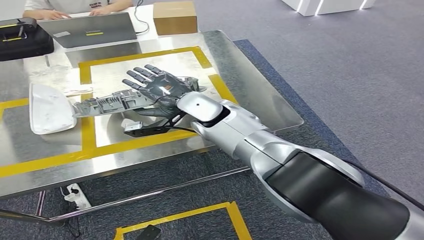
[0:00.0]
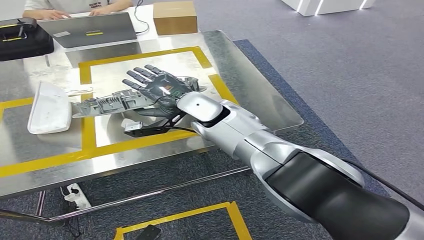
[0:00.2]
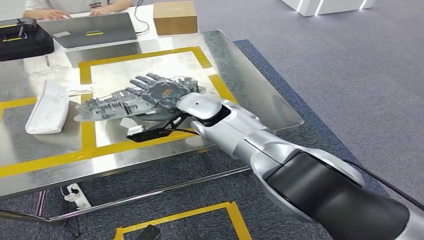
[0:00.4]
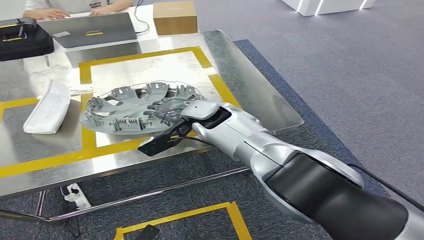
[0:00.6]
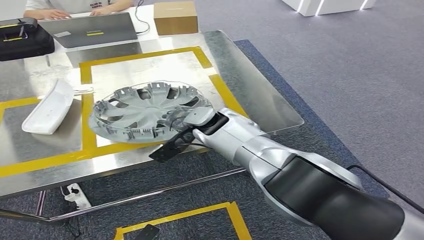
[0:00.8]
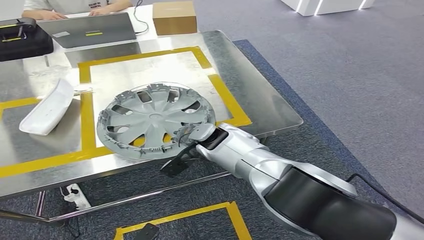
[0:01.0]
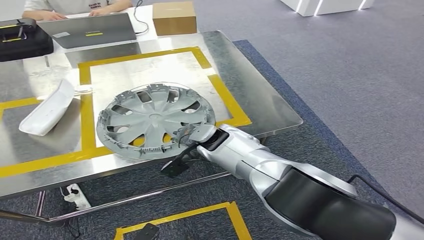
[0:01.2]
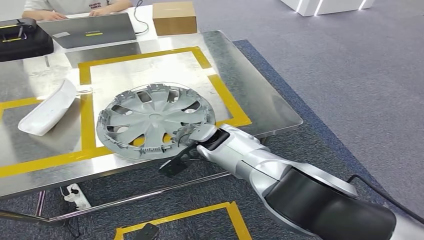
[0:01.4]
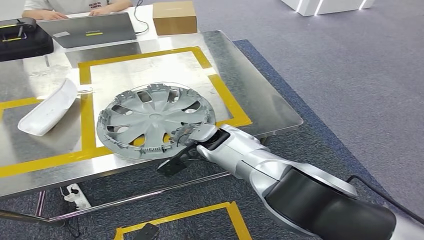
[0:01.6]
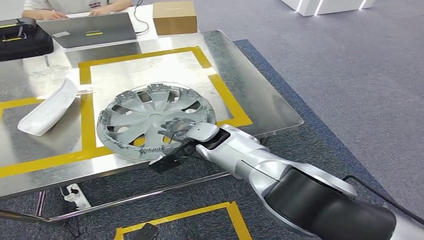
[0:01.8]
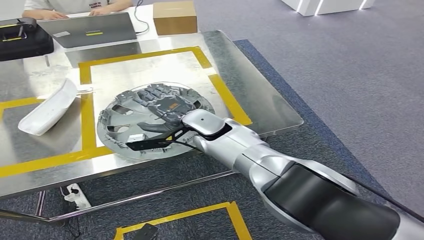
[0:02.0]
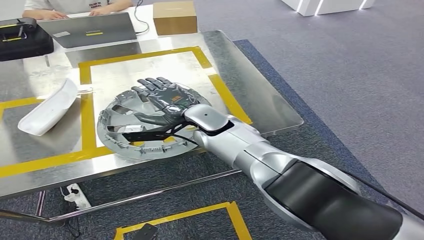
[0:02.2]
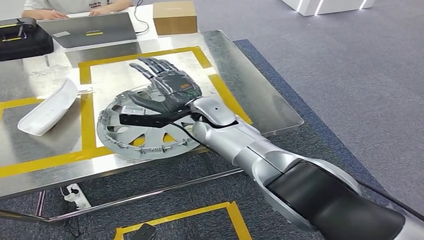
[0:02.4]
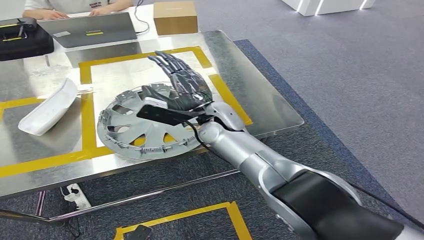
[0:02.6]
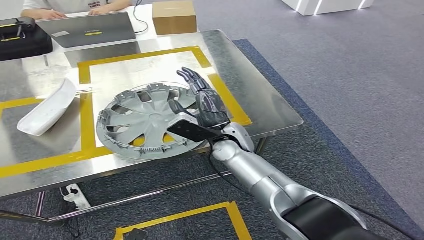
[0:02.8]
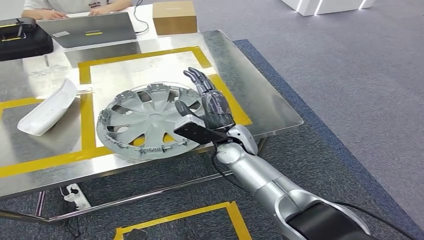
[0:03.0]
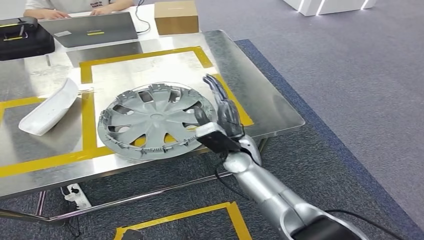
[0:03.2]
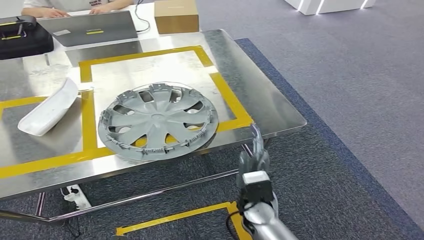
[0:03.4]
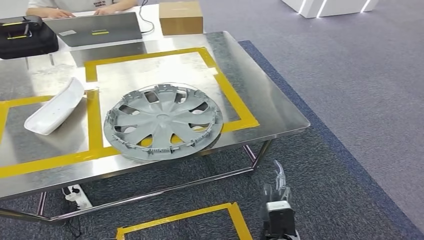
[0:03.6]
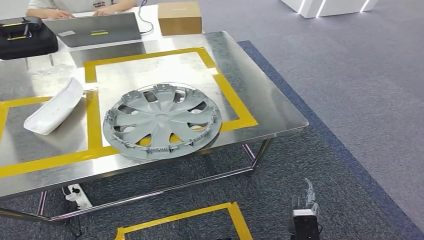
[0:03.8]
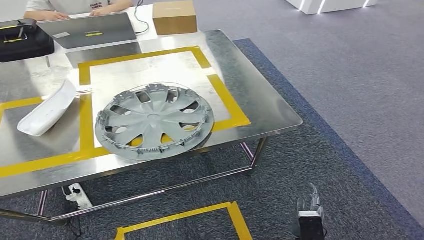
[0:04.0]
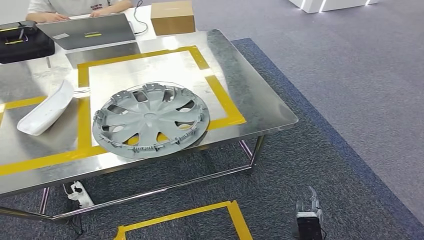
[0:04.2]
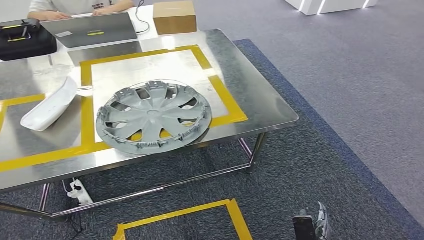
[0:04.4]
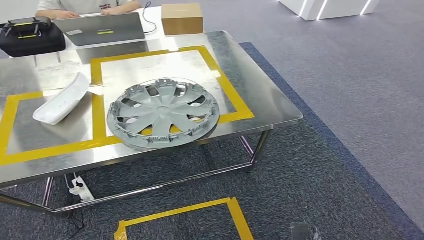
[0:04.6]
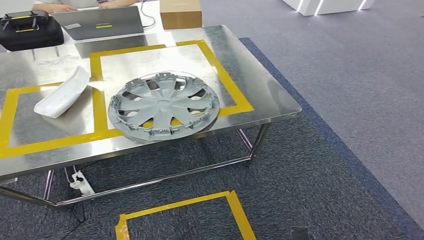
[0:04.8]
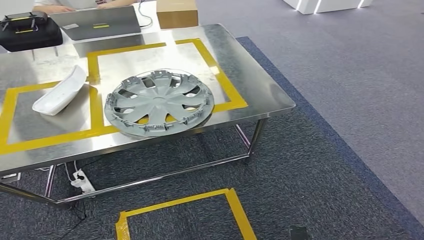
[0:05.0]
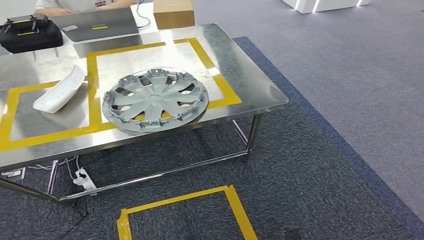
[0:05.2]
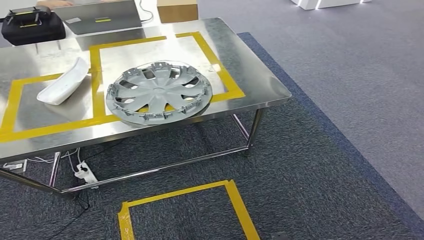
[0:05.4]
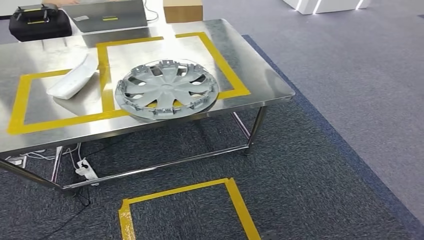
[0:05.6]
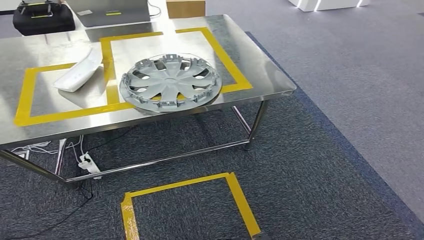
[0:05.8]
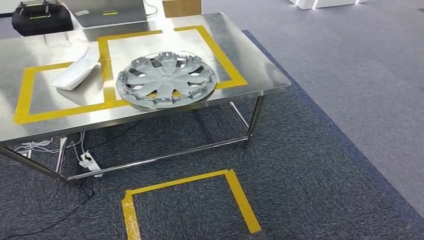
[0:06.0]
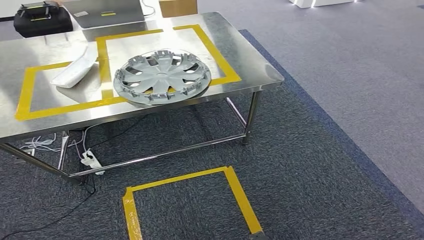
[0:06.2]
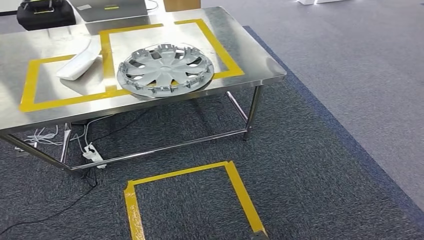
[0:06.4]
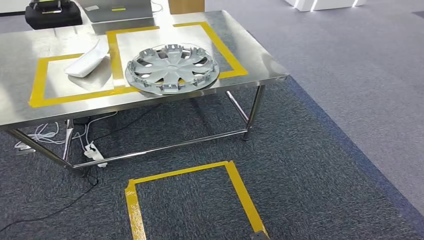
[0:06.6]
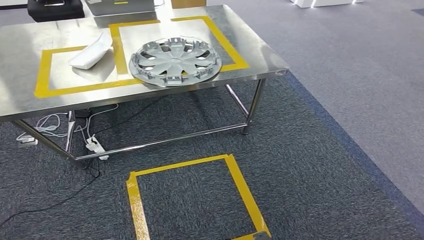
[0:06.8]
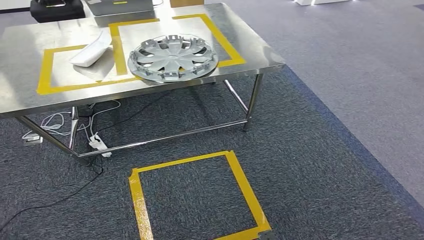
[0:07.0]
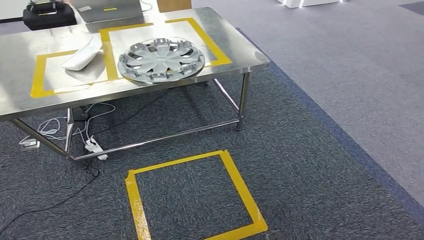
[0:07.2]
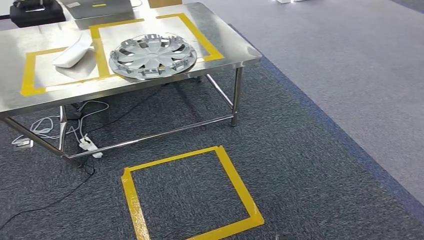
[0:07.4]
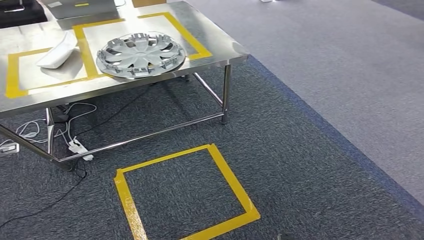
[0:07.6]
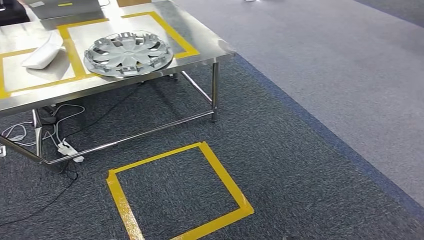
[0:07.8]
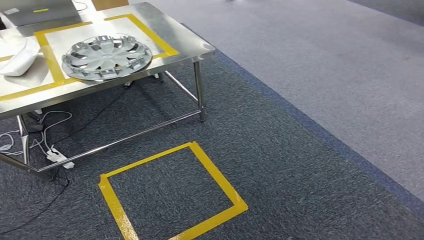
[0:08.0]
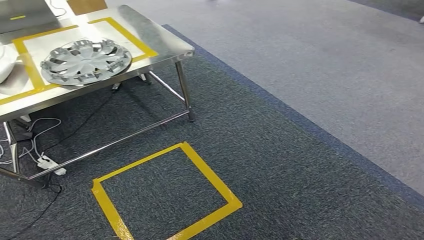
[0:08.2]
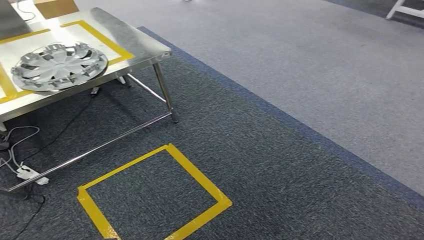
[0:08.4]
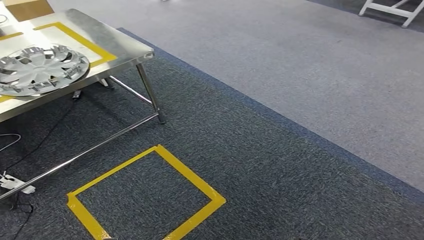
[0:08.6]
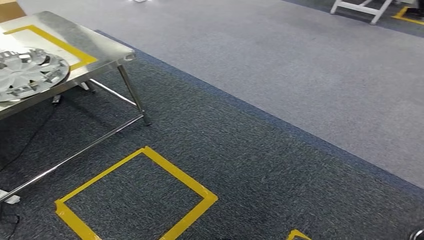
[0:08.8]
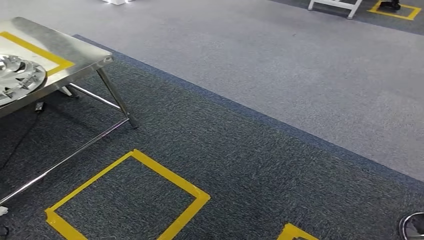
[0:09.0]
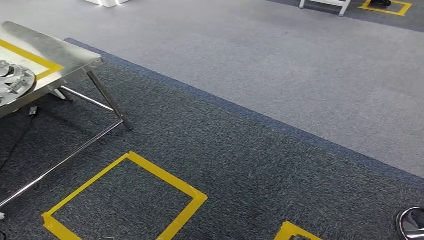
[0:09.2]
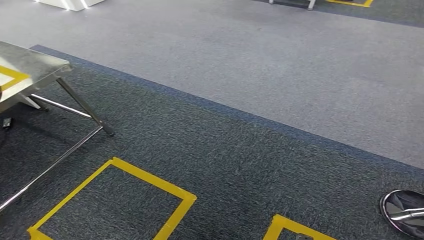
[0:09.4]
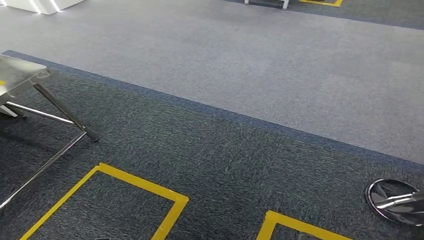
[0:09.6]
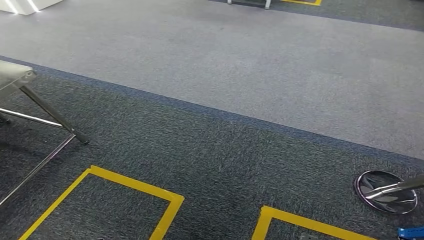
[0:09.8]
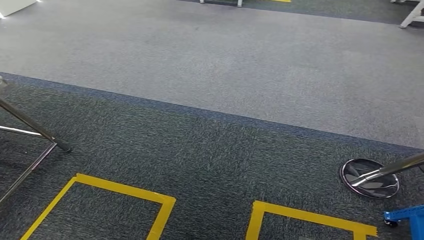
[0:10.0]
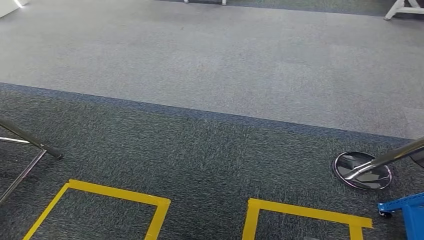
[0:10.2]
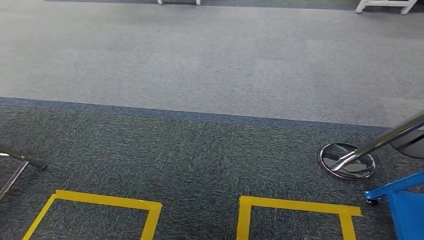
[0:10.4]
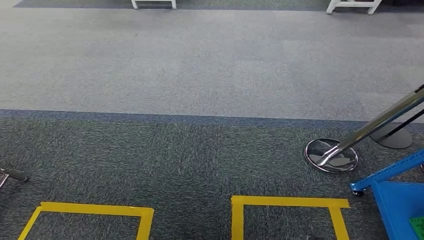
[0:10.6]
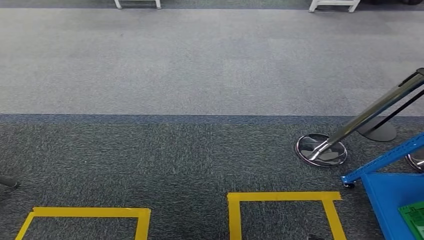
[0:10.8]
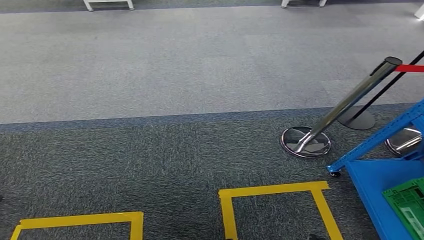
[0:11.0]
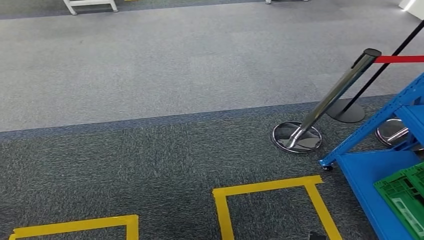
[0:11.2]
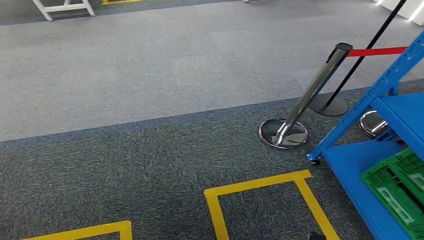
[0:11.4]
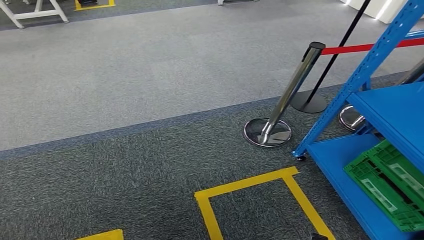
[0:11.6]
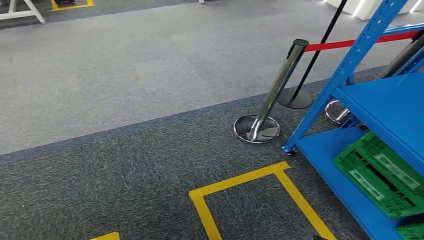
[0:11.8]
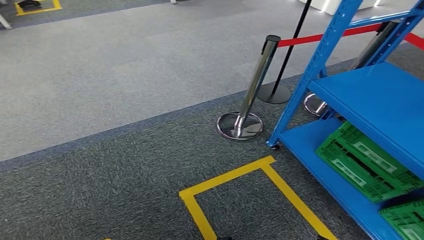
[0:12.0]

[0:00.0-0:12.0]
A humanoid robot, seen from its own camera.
Step, 0:00.0 to 0:02.2: Insert the small component into the corresponding slot on the workbench.
0:00.0 to 0:01.6: The right hand travels downward by approximately 10 cm.
0:01.6 to 0:03.0: The right hand moves some 5 cm.

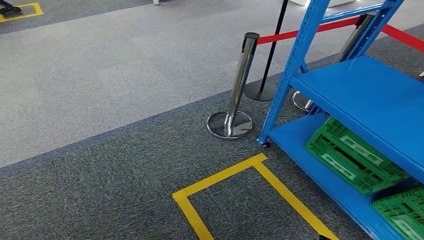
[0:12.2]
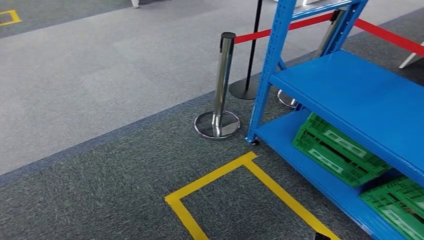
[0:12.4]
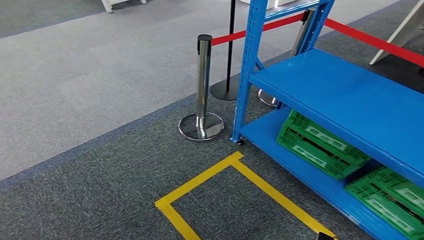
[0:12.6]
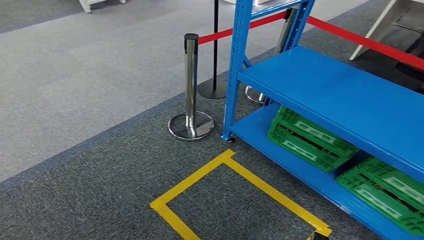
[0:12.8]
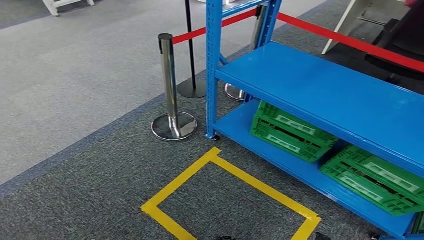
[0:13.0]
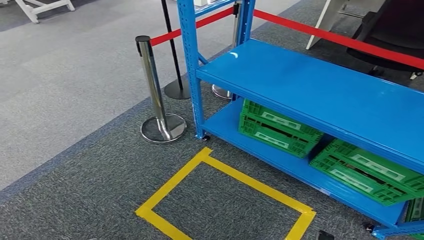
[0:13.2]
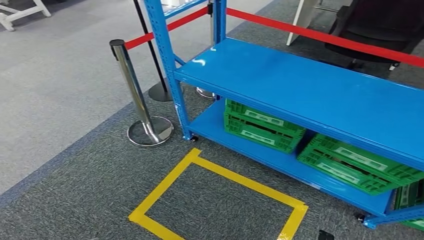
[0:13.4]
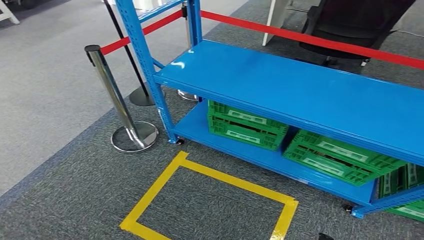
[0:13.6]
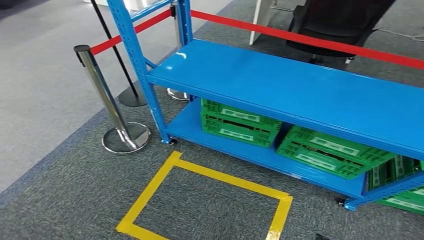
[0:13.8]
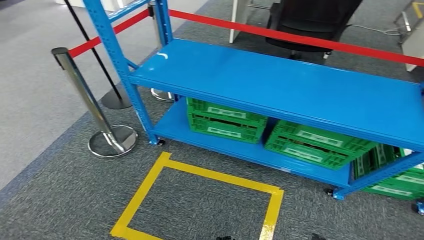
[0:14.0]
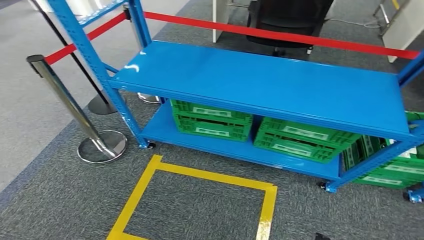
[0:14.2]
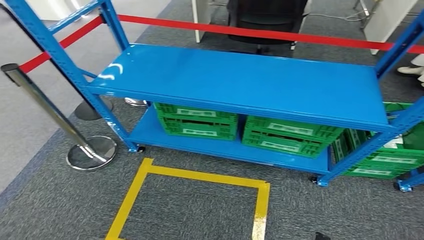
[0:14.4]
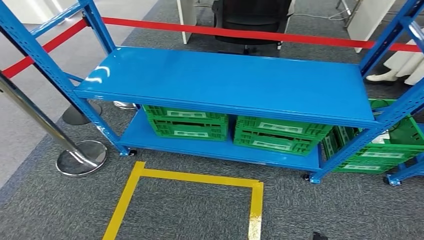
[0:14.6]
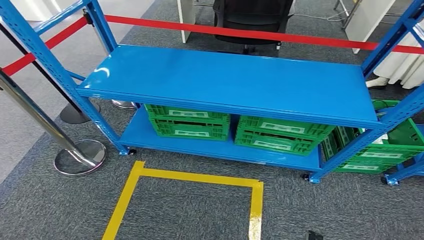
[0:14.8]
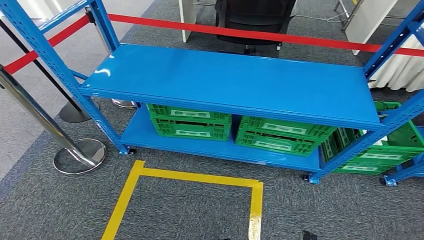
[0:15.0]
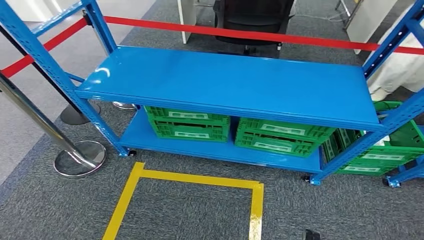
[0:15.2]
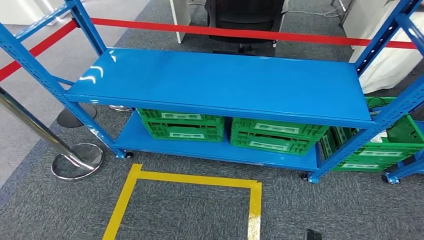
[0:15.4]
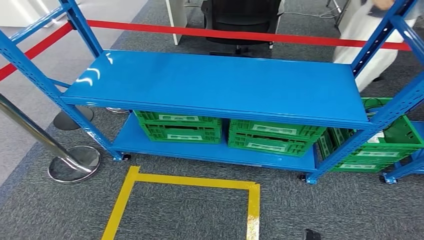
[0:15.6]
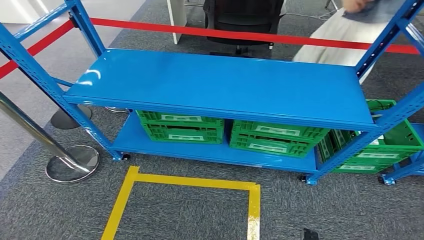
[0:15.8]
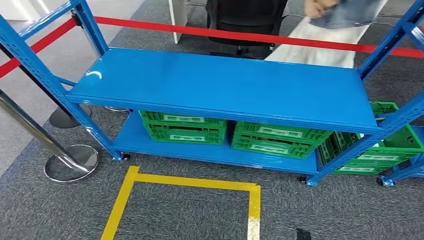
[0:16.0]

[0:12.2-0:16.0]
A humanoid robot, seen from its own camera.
Step, 0:12.2 to 0:15.8: Return to the initial position at the workbench.

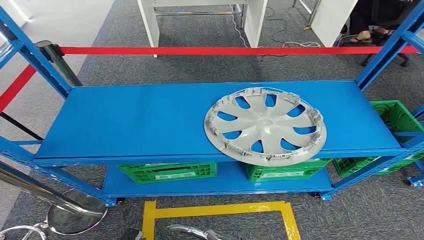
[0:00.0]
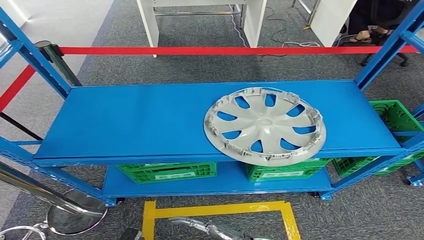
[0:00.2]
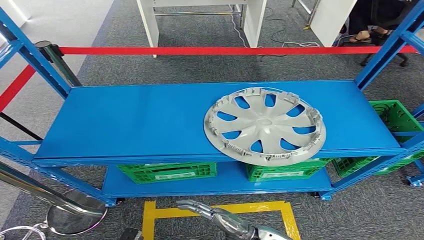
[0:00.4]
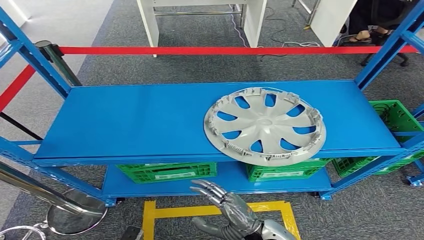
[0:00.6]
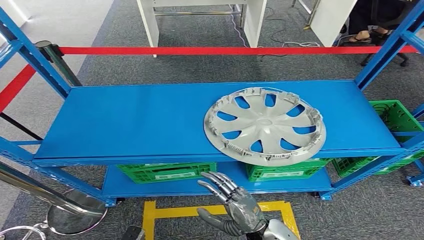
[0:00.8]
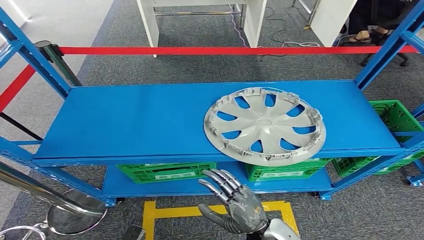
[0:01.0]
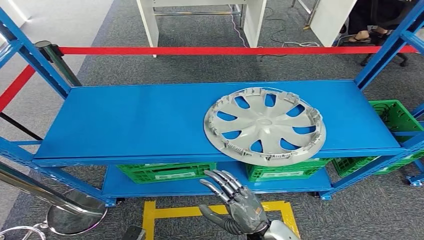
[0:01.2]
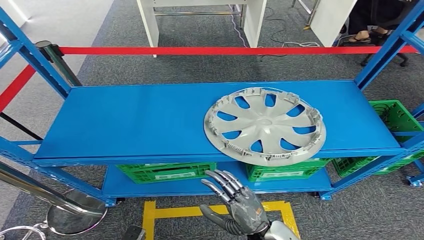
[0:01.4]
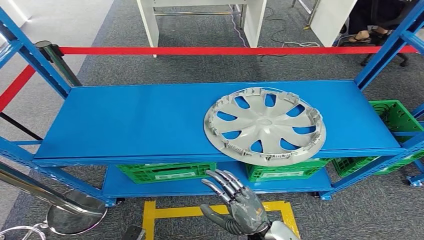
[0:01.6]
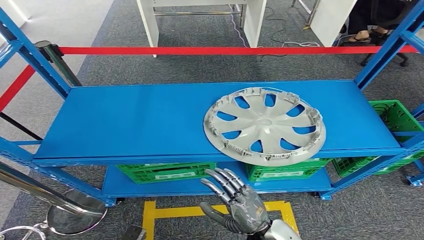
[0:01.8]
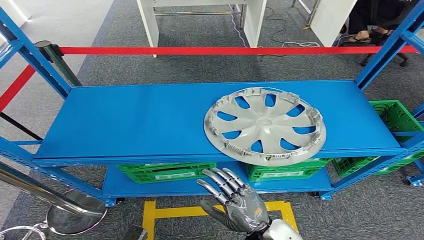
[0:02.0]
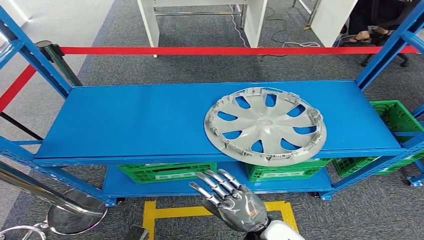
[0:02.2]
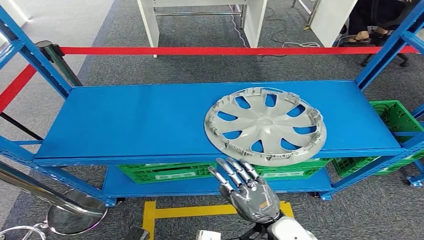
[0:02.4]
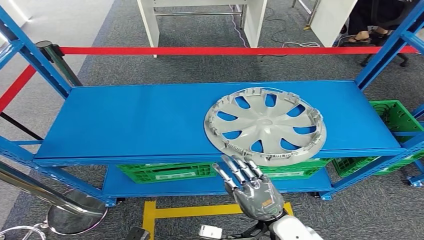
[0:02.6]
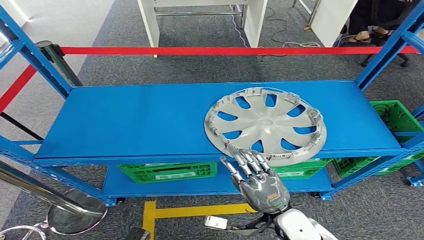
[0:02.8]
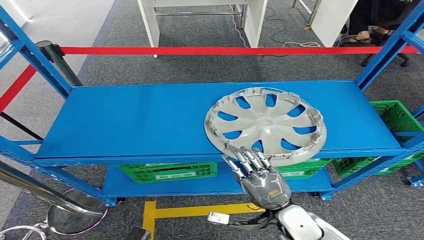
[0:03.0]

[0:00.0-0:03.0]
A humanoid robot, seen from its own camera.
0:01.6 to 0:03.0: The right hand shifts by roughly 5 cm.
